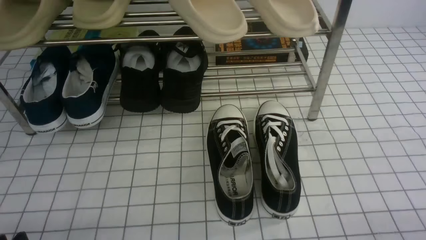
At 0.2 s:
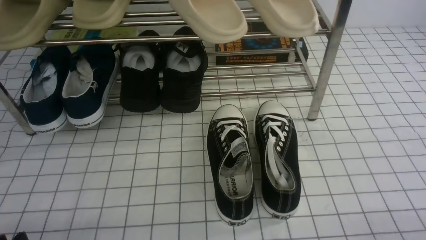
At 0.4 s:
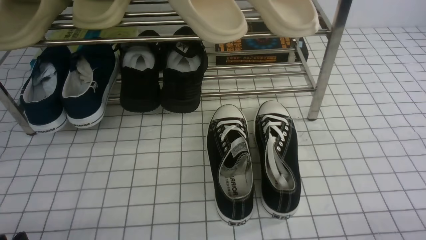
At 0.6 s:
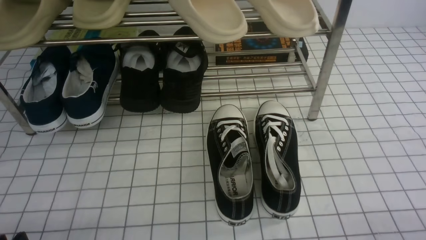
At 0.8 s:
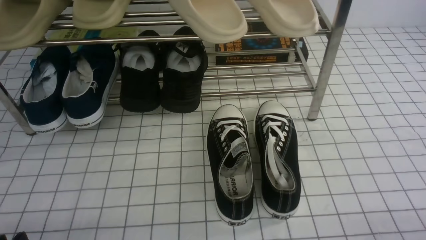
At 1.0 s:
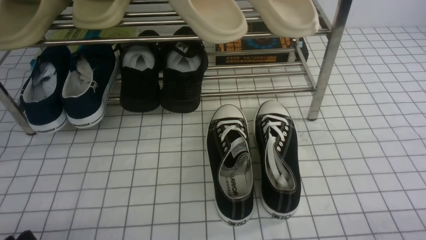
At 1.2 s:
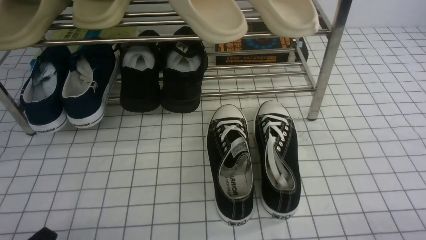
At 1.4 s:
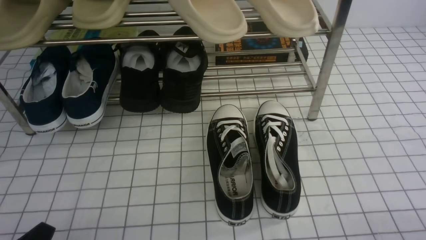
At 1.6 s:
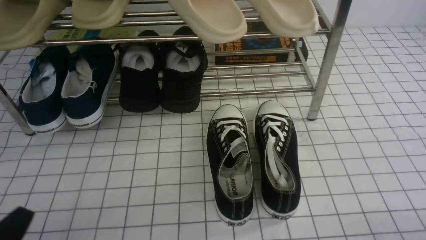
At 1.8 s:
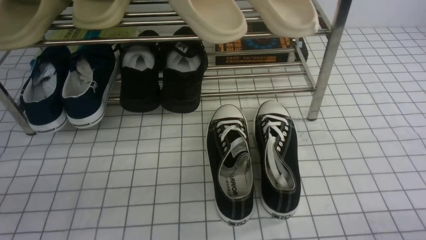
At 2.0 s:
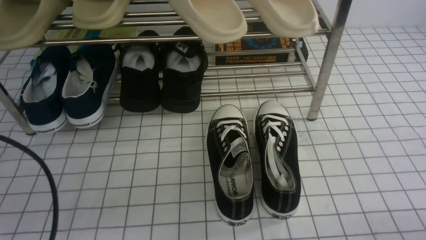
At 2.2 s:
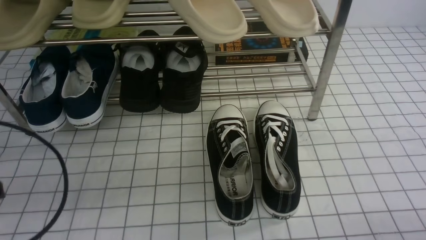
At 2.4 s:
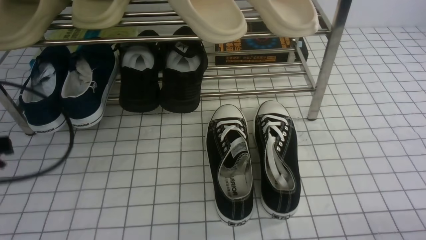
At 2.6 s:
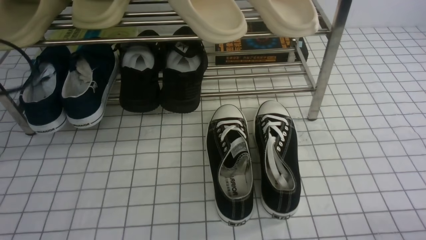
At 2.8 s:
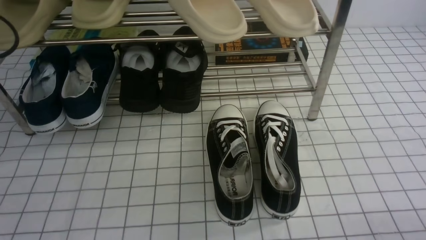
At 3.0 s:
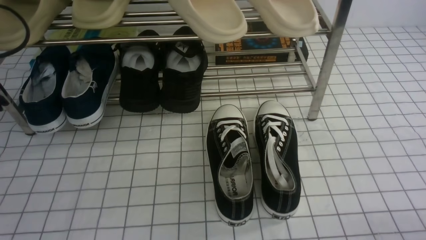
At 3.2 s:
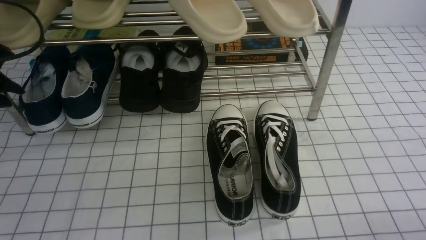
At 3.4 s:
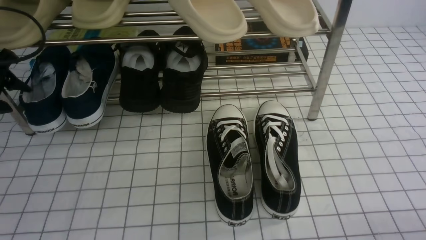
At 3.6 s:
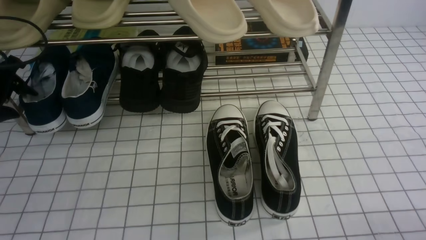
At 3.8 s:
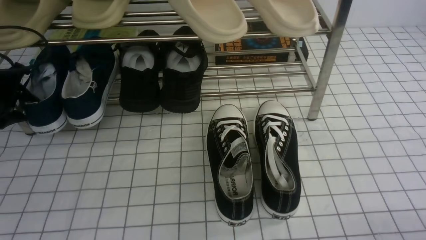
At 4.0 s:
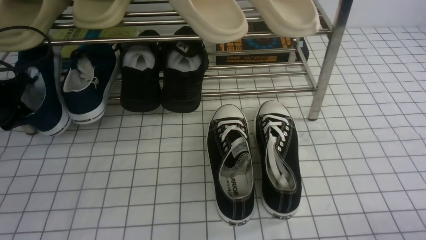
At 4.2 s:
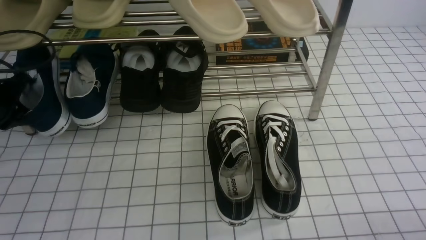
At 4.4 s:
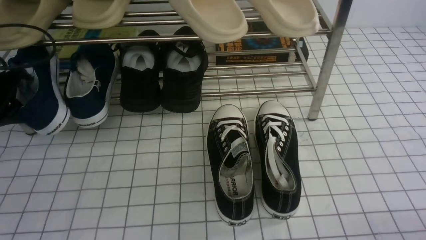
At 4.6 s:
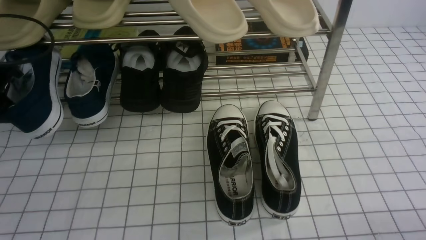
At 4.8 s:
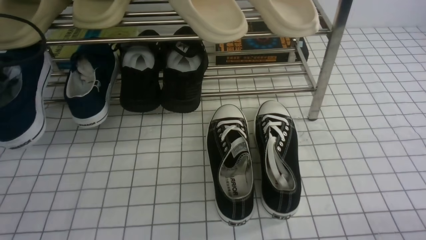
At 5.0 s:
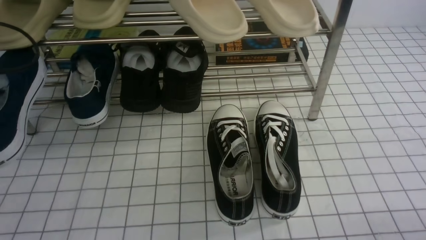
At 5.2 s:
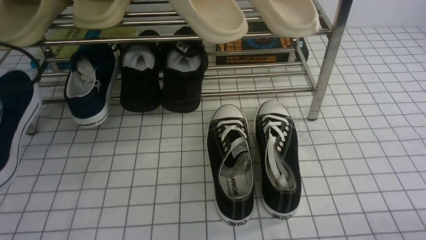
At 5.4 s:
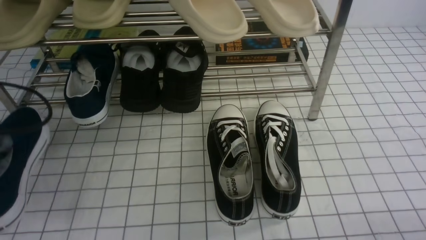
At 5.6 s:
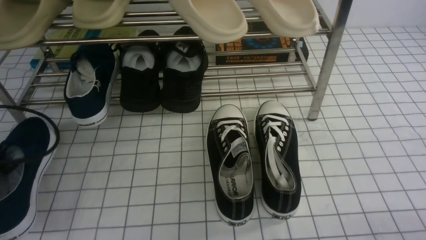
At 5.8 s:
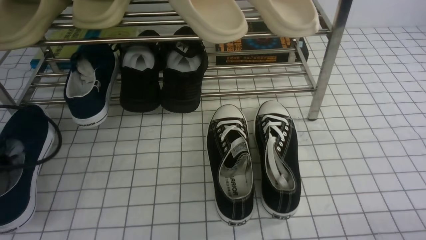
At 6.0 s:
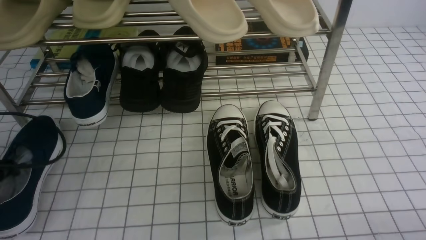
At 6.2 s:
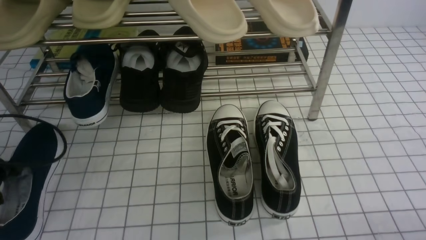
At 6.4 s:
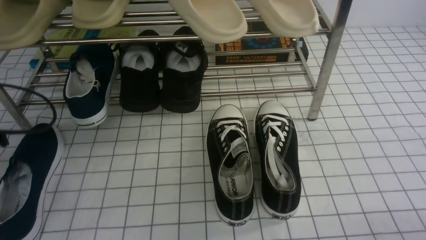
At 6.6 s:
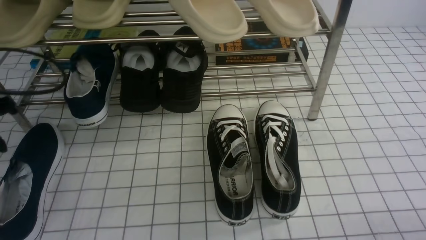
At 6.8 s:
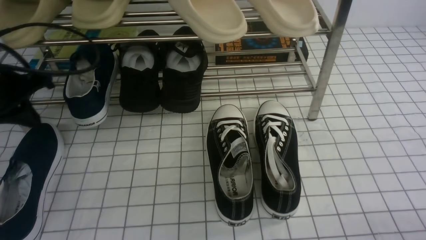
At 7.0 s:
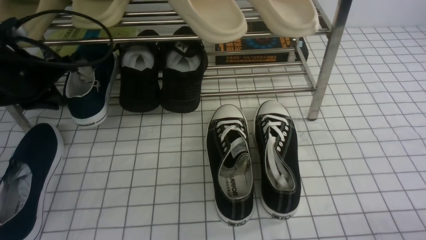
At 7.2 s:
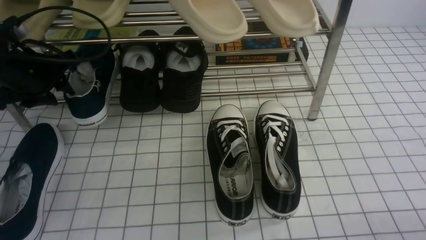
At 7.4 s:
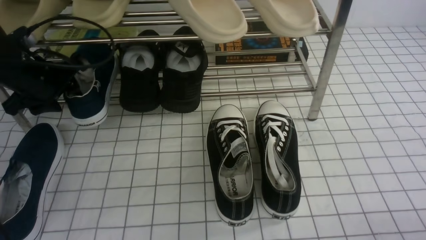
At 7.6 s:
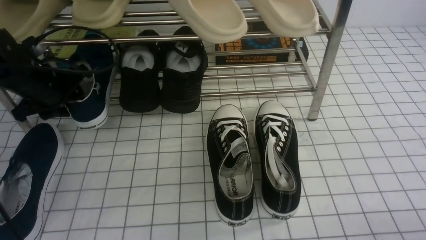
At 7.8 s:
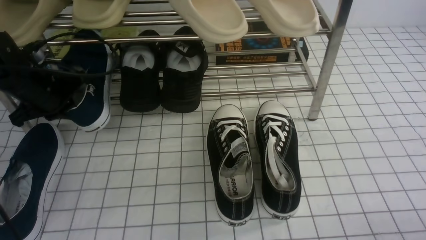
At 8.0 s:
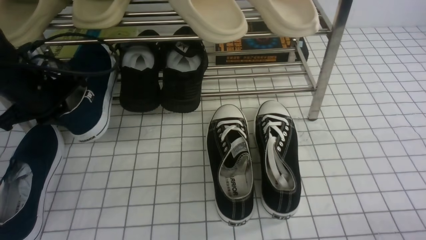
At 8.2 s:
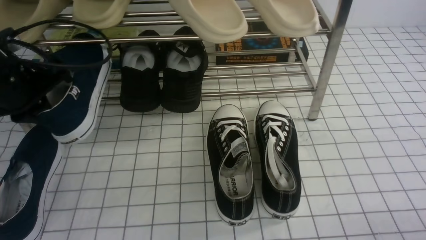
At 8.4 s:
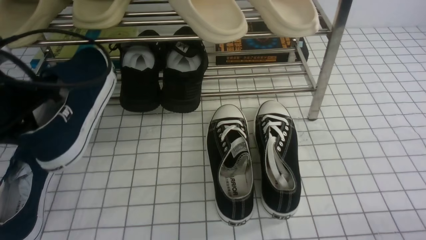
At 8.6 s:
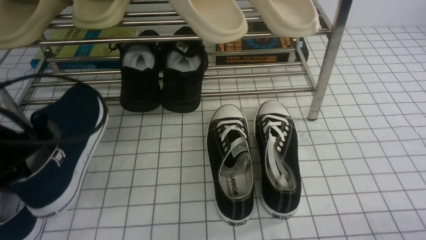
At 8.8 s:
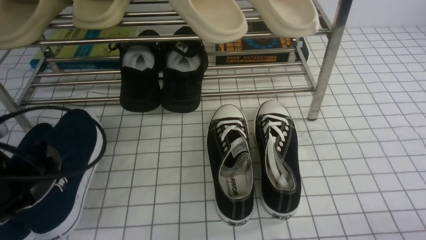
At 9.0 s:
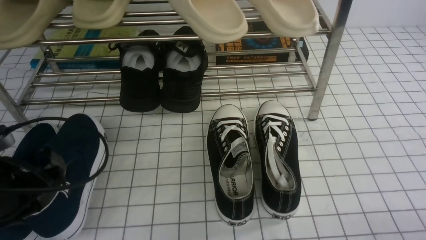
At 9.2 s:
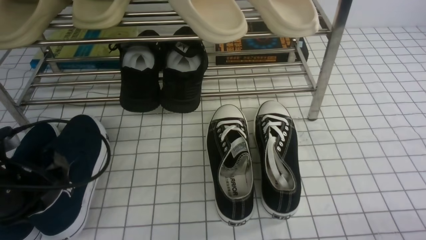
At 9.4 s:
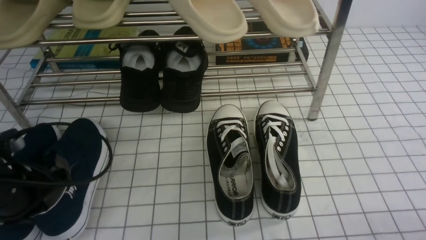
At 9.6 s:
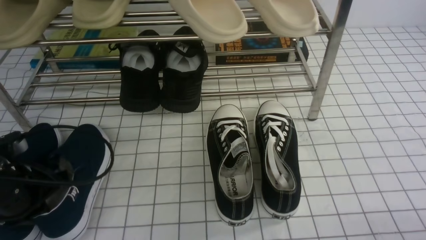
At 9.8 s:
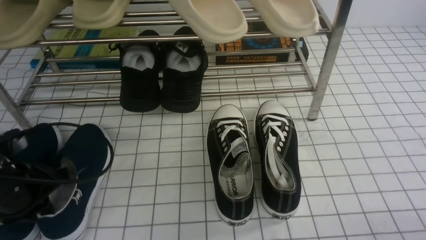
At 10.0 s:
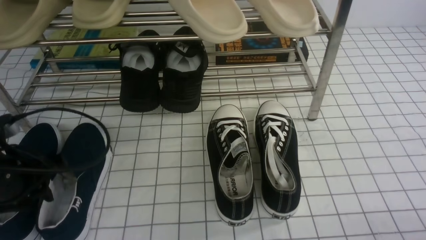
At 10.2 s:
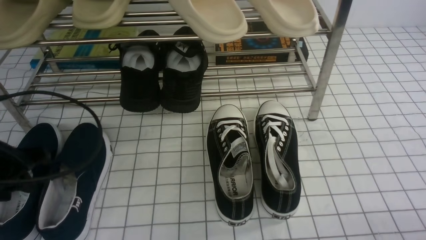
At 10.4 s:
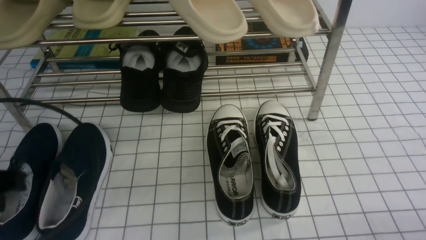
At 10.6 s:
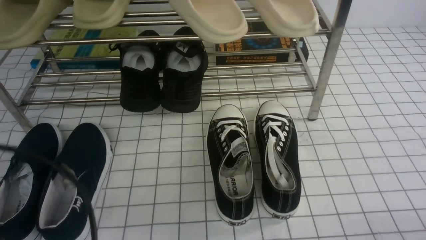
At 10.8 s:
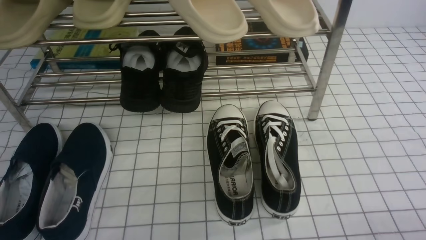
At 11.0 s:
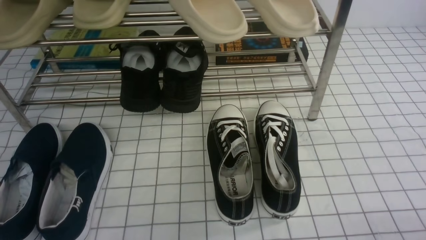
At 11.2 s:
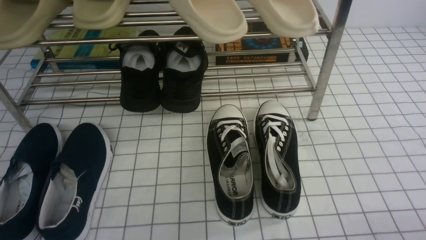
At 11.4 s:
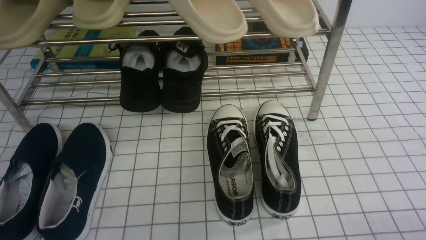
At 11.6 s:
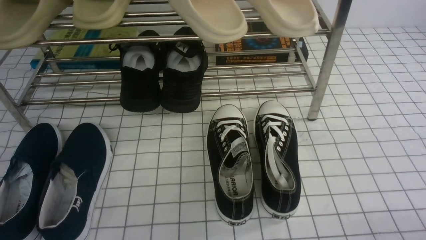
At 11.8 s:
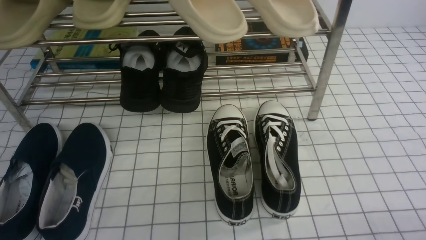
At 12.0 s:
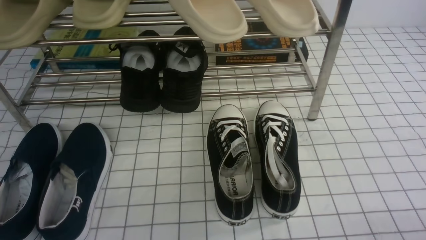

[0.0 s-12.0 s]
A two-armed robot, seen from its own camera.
Step, 0.0 to 3.8 s: use the left arm to clamp a shoe on the left side of the shoe rack.
Step, 4.0 to 6.4 s: Use your left arm to remove the clamped shoe from the shoe rack and put it down.
Step, 6.6 to 7.6 s: use the left arm to clamp a shoe on the left side of the shoe rack.
Step, 7.8 to 10.2 s: Use your left arm to remove the clamped shoe from the shoe rack and put it down.
0.0 to 1.6 s: The left gripper shifts approximately 5 cm upward, and closes its fingers.
1.6 to 3.0 s: The left gripper heads forward and to the left, covering roughly 25 cm.
3.0 to 4.4 s: The left gripper opens, then closes again.
4.4 to 6.0 s: The left gripper heads backward, covering approximately 10 cm.
6.0 to 7.6 s: The left gripper travels forward and to the right by approximately 15 cm, and opens.
7.6 to 9.0 s: The left gripper moves backward, about 15 cm, and closes up.
9.0 to 10.4 s: The left gripper shifts about 10 cm upward and backward, and opens, then closes again.
10.4 to 12.0 s: The left gripper heads backward, covering roughly 15 cm.

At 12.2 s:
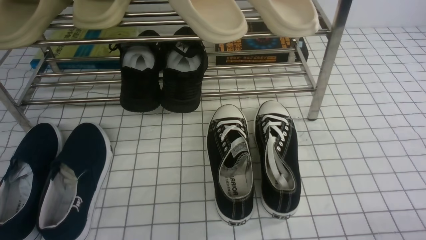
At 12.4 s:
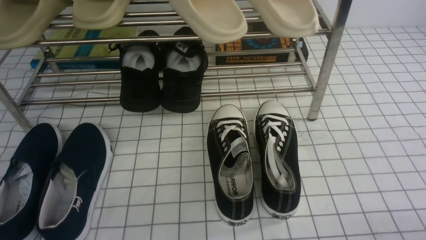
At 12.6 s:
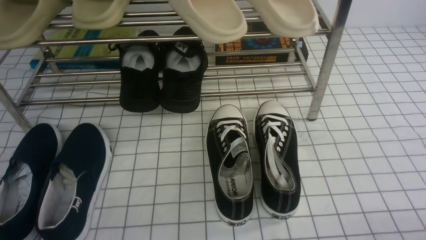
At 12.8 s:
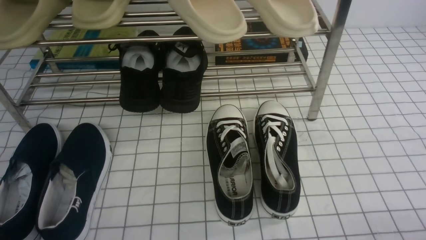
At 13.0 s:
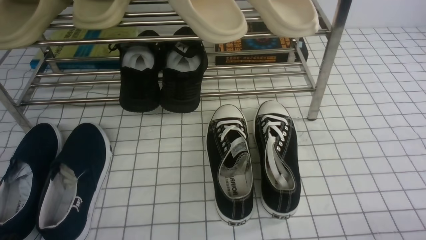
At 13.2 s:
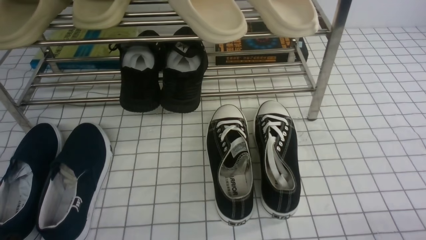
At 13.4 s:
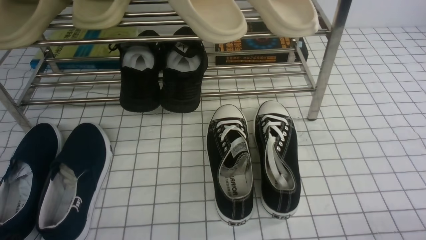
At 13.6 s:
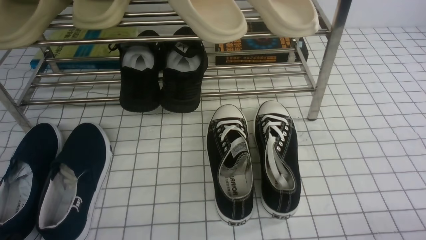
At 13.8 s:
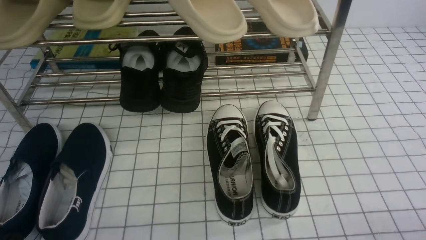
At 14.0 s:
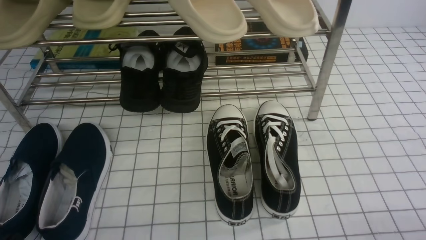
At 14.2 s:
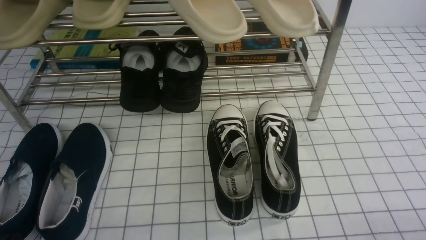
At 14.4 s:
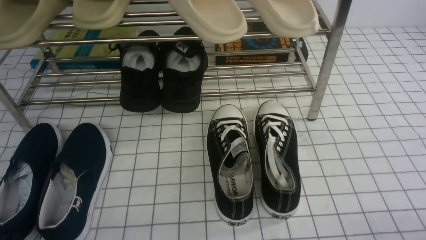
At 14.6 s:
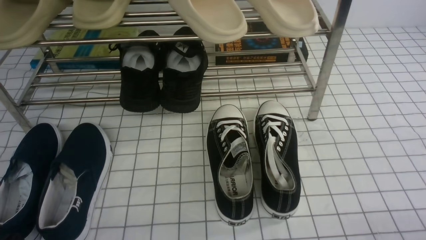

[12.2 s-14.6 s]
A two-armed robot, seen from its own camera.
13.4 to 14.6 s: The two grippers keep their place.

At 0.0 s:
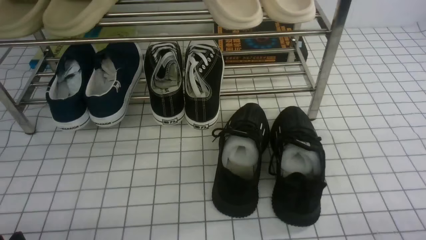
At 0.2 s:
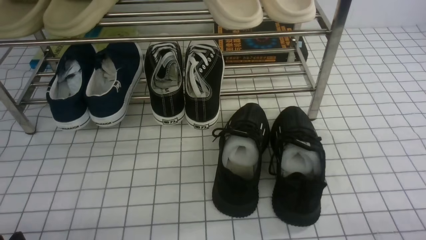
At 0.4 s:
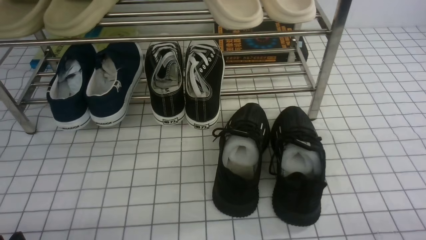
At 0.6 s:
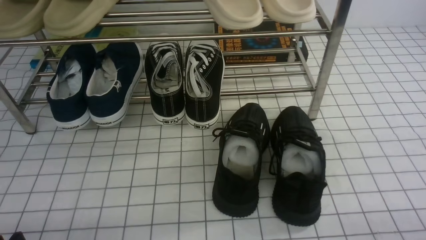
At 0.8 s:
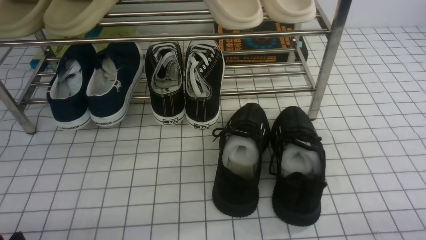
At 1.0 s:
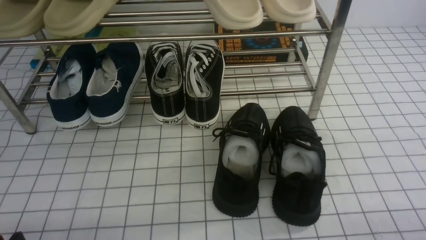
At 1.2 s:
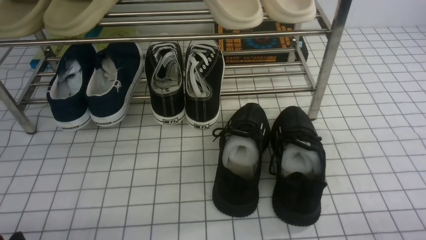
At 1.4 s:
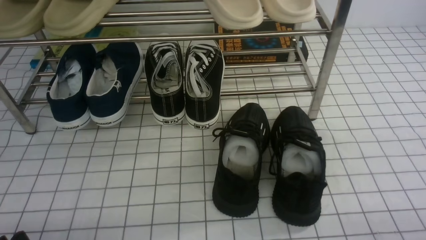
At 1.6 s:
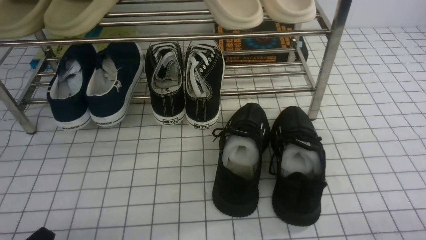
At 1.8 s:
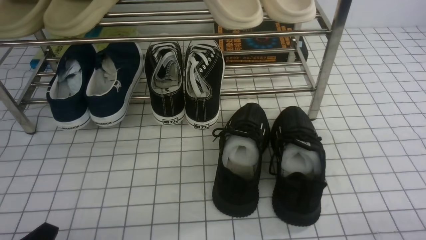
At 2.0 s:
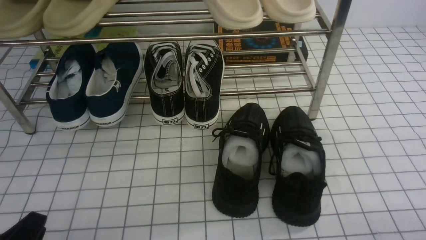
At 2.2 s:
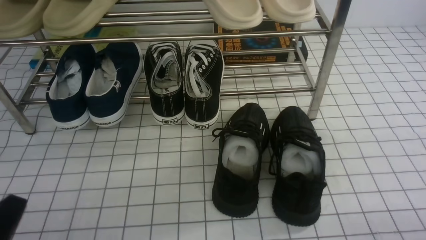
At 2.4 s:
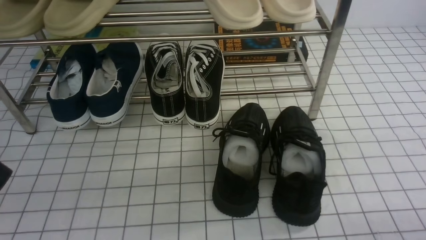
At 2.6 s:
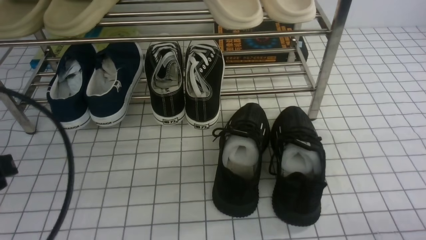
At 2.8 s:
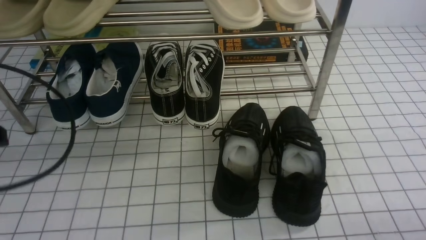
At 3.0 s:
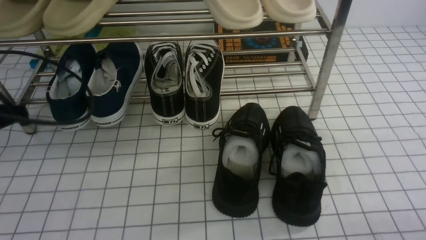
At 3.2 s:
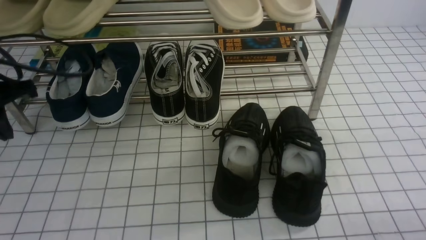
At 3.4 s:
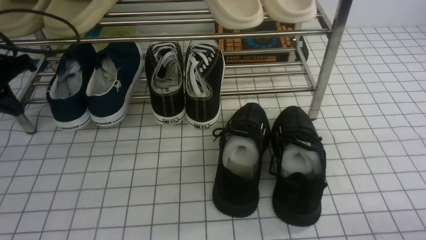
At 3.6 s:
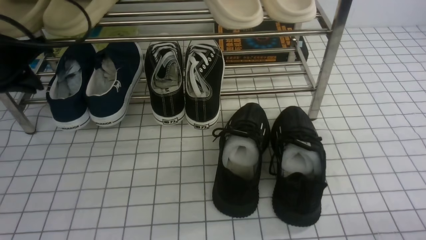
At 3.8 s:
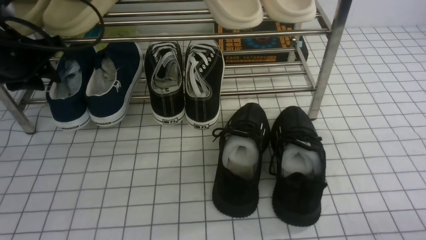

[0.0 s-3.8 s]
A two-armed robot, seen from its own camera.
0.0 to 1.2 s: Both grippers stay about where they are.
1.2 to 2.6 s: The left gripper moves upward and forward, approximately 15 cm, and closes.
2.6 to 3.8 s: The left gripper moves forward, approximately 25 cm, and opens up.
